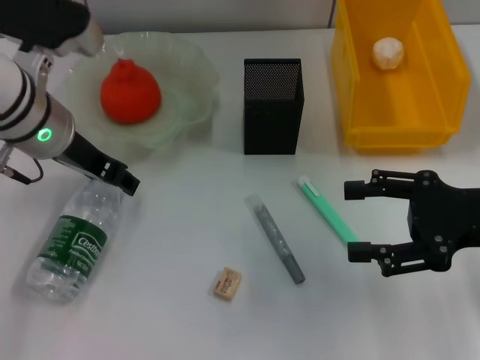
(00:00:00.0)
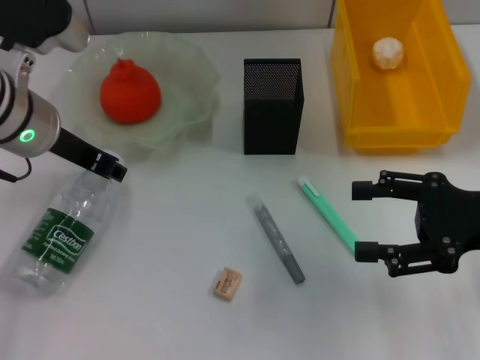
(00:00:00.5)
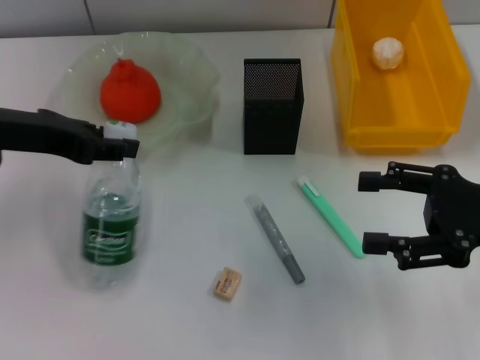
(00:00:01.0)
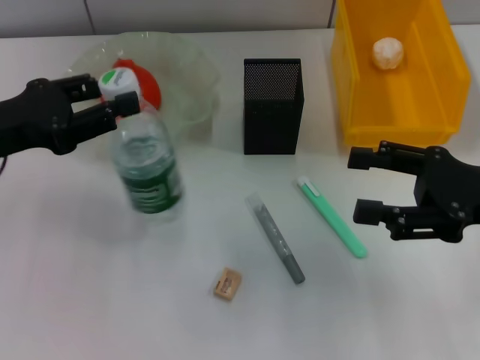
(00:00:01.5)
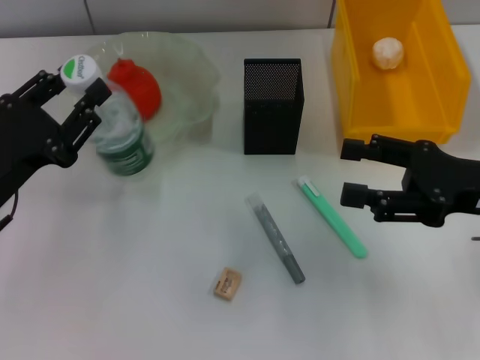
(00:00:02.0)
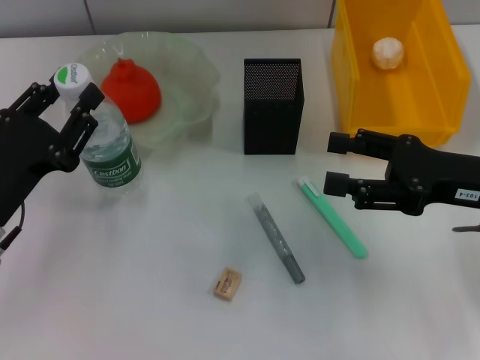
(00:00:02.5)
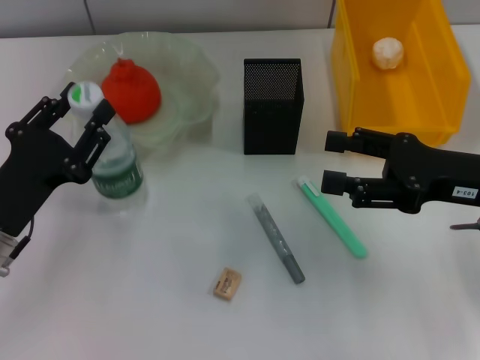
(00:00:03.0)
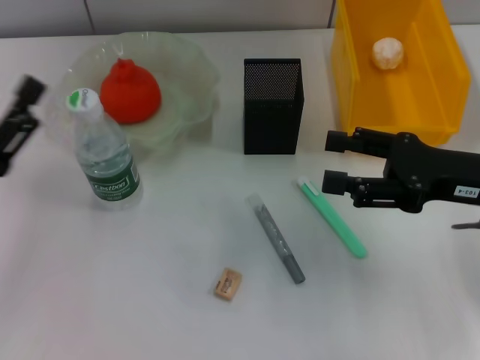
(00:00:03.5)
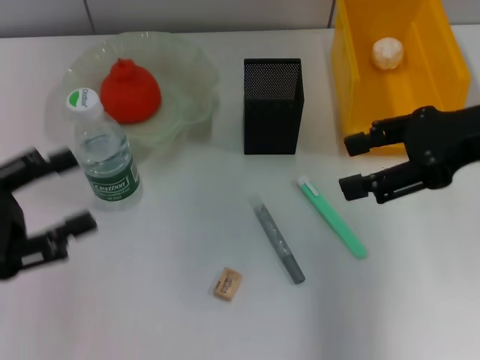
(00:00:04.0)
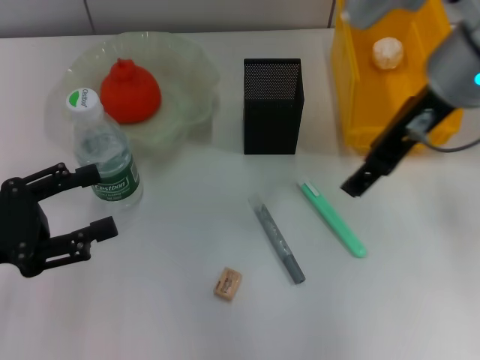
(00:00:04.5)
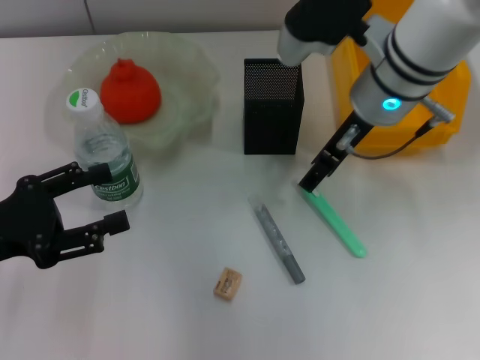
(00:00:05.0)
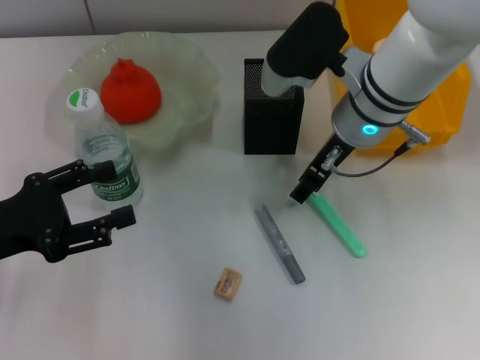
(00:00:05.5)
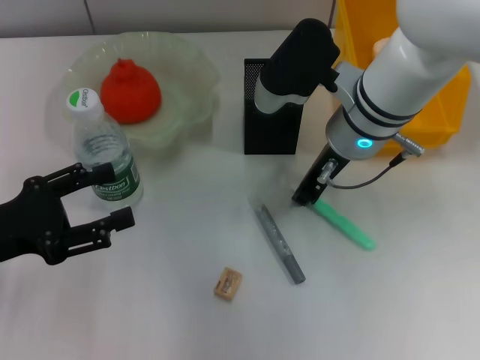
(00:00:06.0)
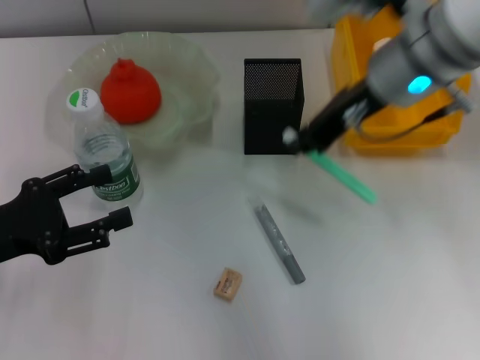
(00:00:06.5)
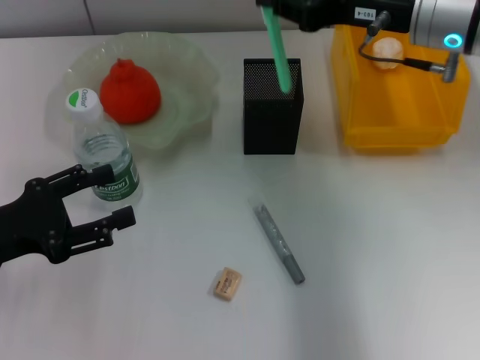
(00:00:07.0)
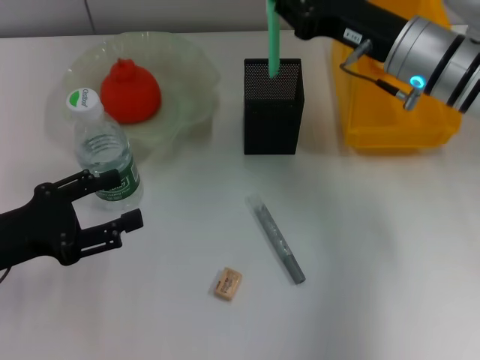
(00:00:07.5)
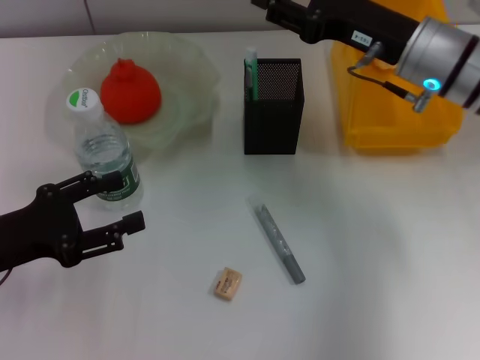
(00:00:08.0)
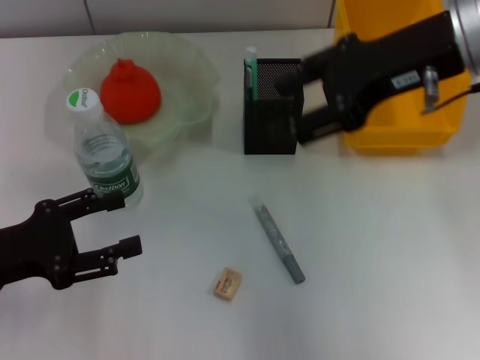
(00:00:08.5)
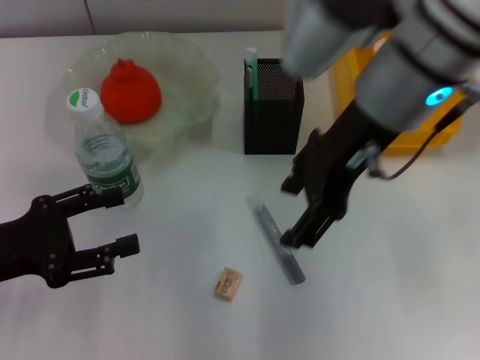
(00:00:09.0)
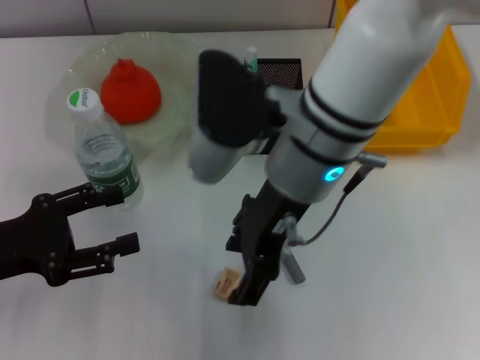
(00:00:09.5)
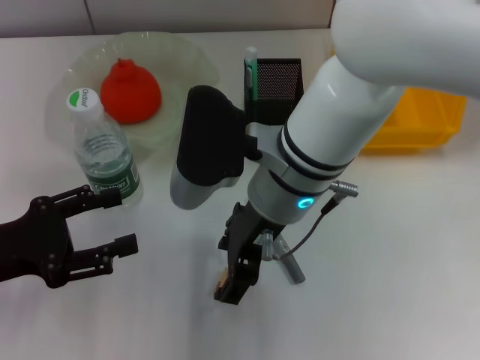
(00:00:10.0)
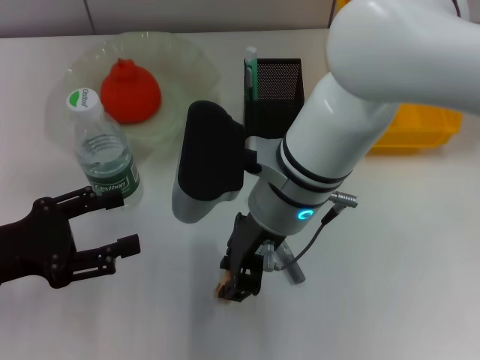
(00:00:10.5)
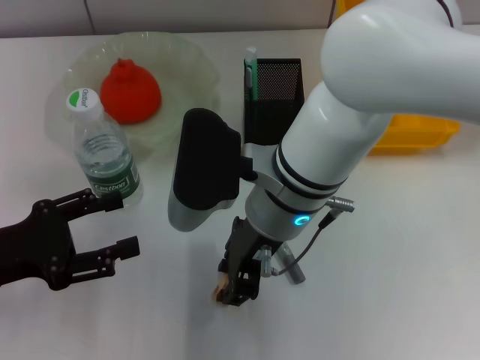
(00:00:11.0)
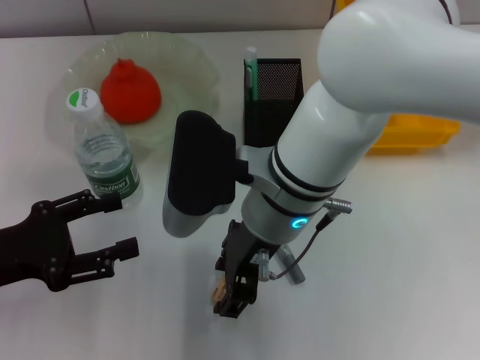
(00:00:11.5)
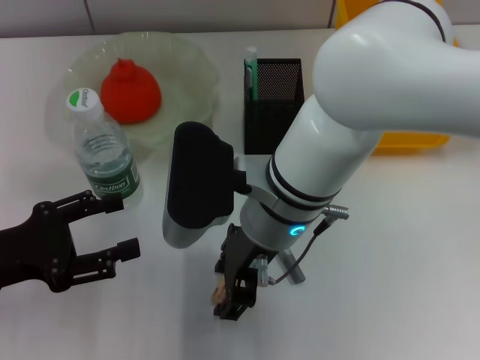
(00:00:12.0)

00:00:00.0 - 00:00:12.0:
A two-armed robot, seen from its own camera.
Step, 00:00:00.5 - 00:00:03.0: Place the water bottle on the table with the left hand.
Step, 00:00:03.5 - 00:00:06.0: Grab the blue utility knife with the right hand.
Step, 00:00:06.5 - 00:00:07.5: Place the blue utility knife into the pen holder with the right hand.
00:00:00.0 - 00:00:02.0: The left gripper is displaced backward, to the left and downward by roughly 15 cm, and closes its fingers.
00:00:02.0 - 00:00:04.0: The left gripper goes roughly 5 cm to the left, and opens up. The right gripper heads upward, covering roughly 10 cm.
00:00:04.0 - 00:00:06.0: The right gripper heads to the left, downward and forward, covering some 20 cm, and closes its fingers.
00:00:06.0 - 00:00:08.0: The right gripper is displaced to the right by some 10 cm, and closes and opens again.
00:00:08.0 - 00:00:10.0: The right gripper is displaced to the left and backward by some 20 cm.

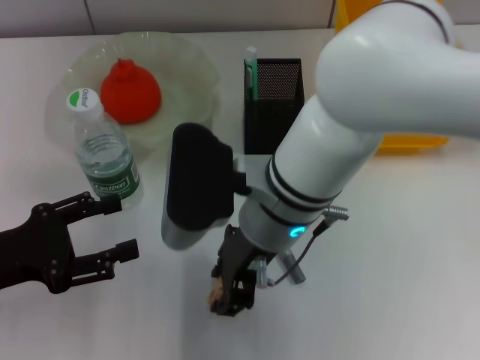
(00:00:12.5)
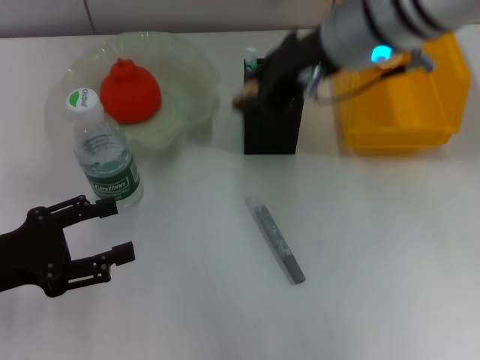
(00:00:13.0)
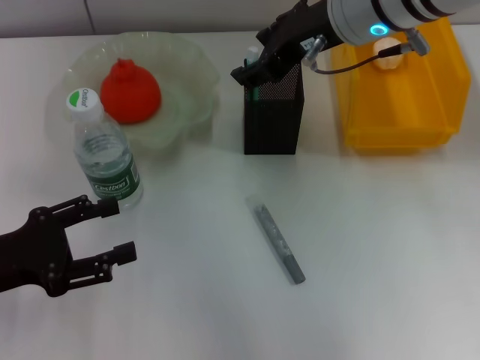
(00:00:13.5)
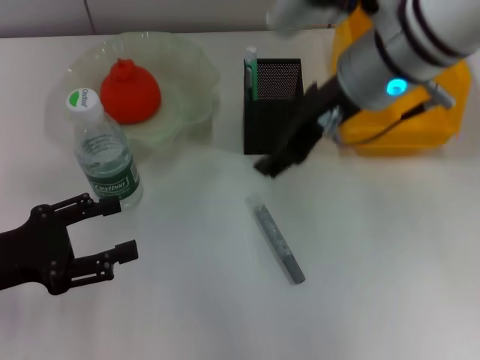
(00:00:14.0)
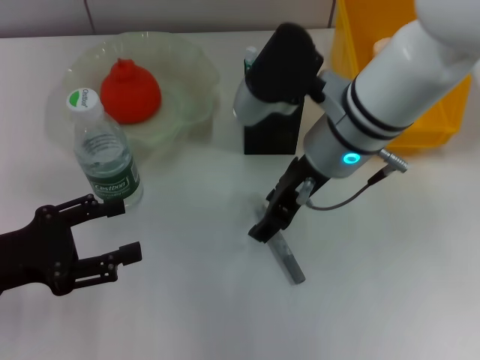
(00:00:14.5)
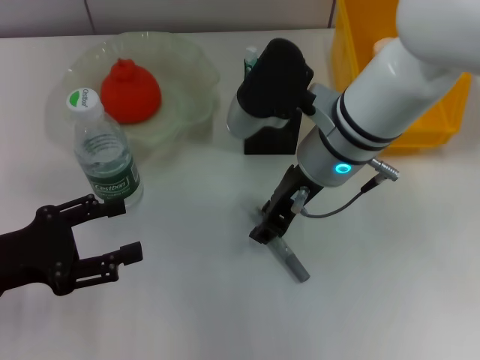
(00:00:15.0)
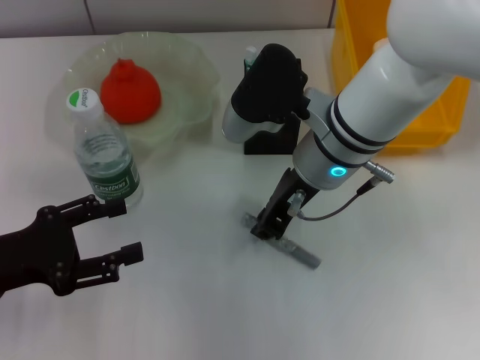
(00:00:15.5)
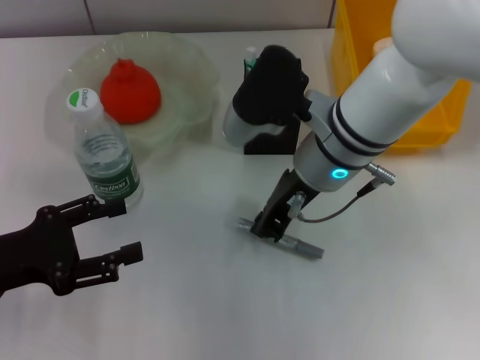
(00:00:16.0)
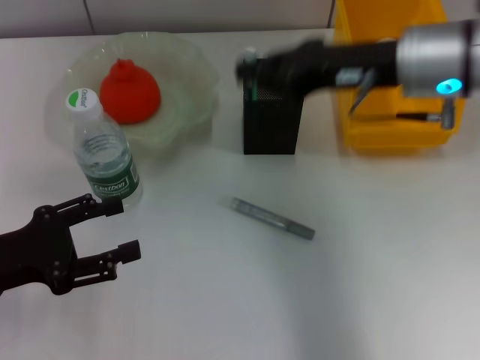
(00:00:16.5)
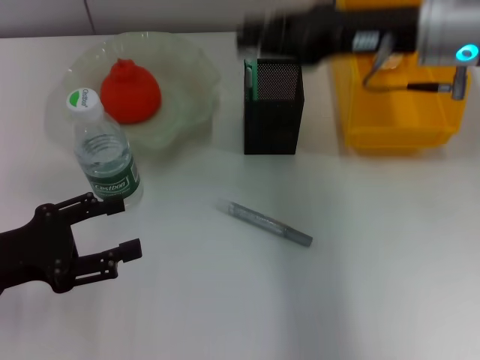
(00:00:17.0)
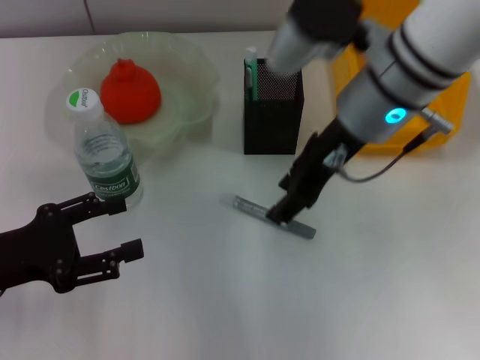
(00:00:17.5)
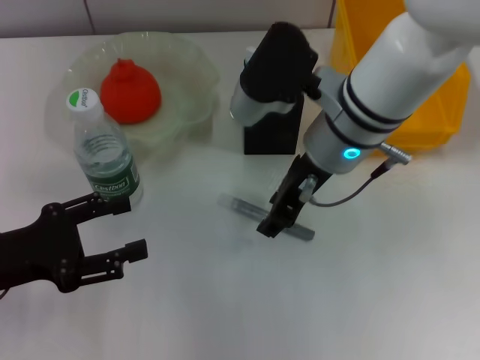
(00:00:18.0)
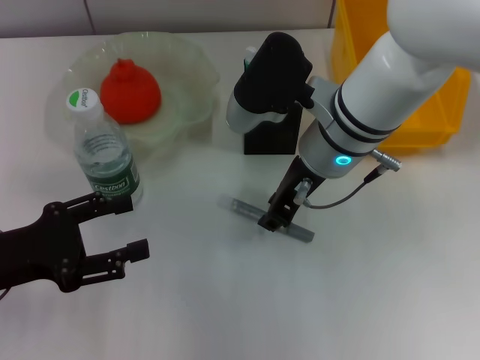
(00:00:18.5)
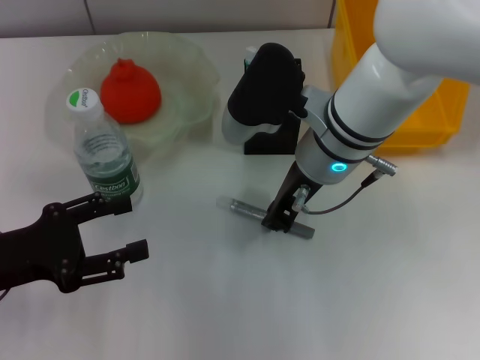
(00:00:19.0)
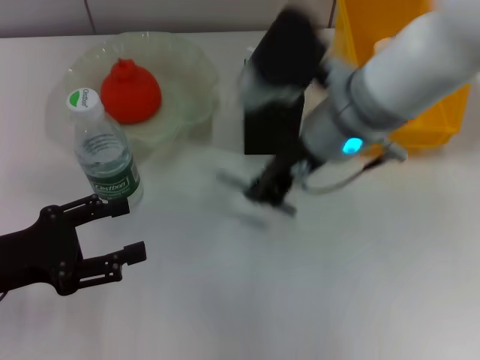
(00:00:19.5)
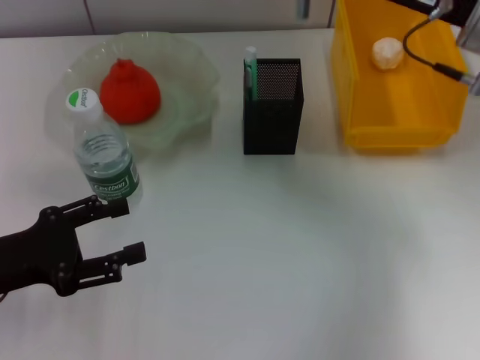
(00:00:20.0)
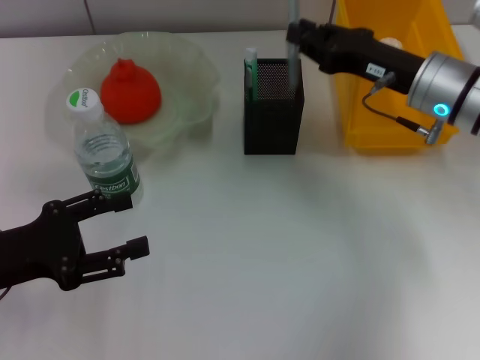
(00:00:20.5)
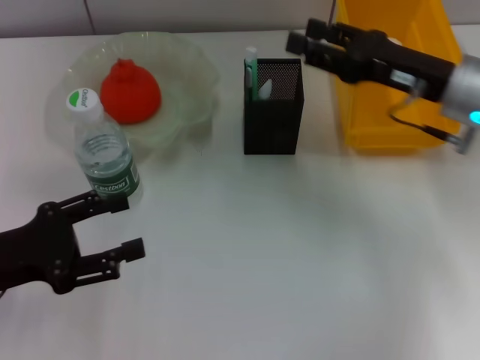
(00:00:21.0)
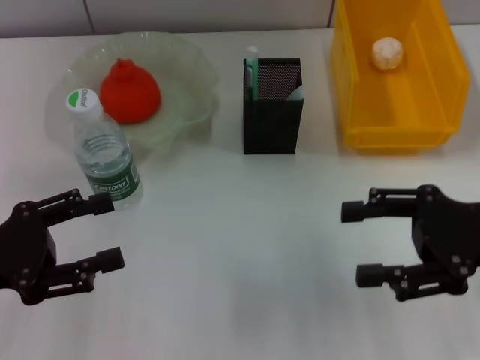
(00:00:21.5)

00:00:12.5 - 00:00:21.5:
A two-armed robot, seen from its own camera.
Step, 00:00:13.5 - 00:00:19.0: Grab the gray glue with the right hand.
Step, 00:00:19.5 - 00:00:20.5: Place the gray glue into the pen holder with the right hand.
00:00:12.5 - 00:00:14.5: The right gripper shifts some 10 cm to the right and forward, and moves roughly 10 cm upward and comes back.
00:00:14.5 - 00:00:17.0: The right gripper goes some 10 cm to the right and upward, and closes its fingers.
00:00:17.0 - 00:00:19.5: The right gripper shifts roughly 10 cm to the left, and opens, then closes again.
00:00:19.5 - 00:00:21.5: The right gripper is displaced to the right and backward by roughly 20 cm, and opens its fingers.

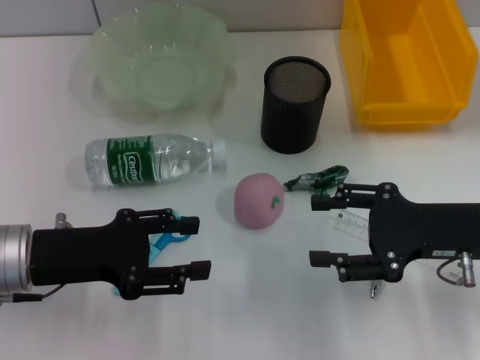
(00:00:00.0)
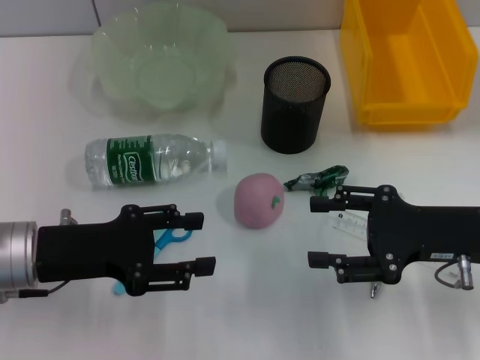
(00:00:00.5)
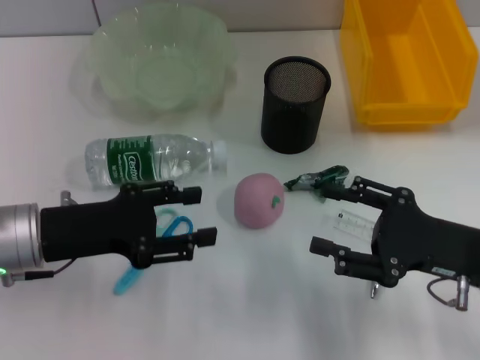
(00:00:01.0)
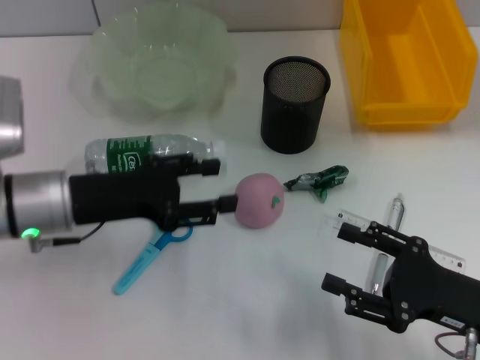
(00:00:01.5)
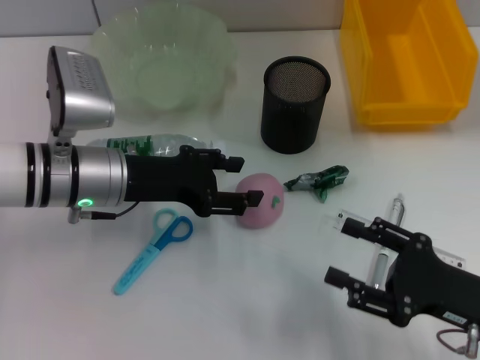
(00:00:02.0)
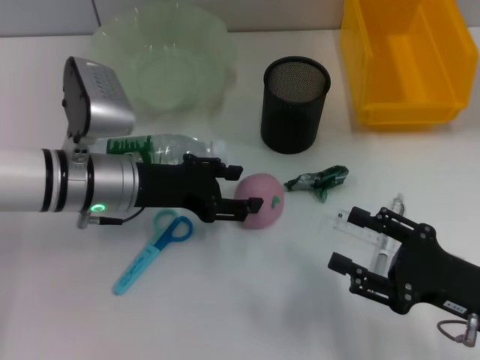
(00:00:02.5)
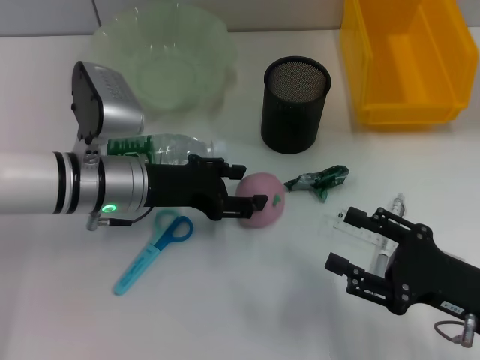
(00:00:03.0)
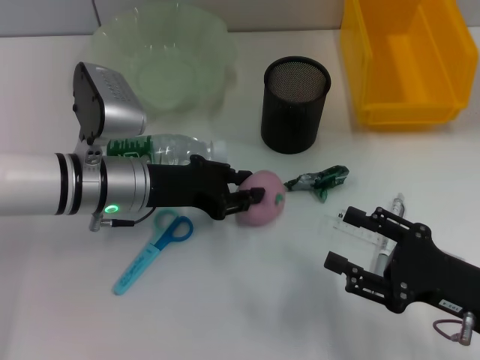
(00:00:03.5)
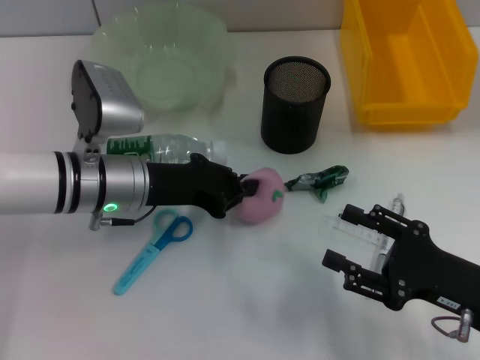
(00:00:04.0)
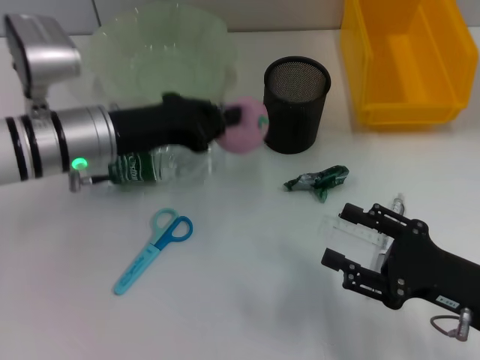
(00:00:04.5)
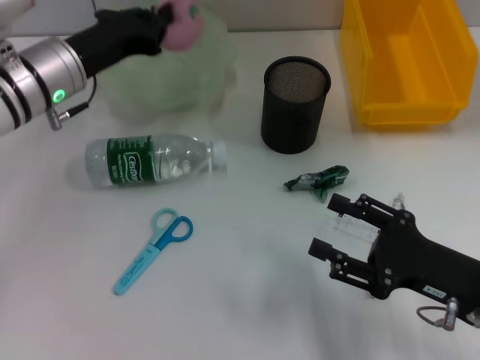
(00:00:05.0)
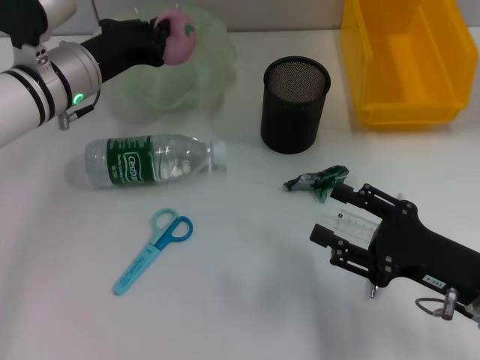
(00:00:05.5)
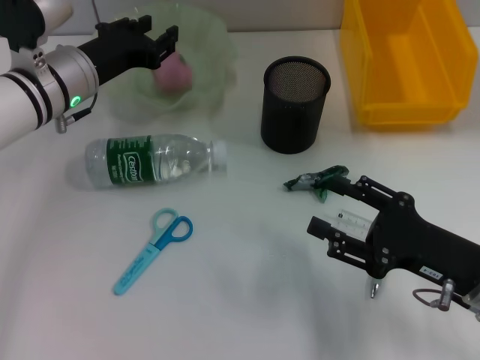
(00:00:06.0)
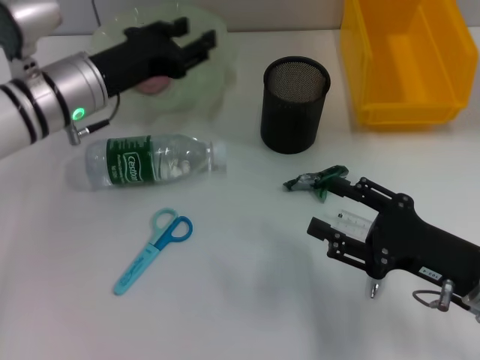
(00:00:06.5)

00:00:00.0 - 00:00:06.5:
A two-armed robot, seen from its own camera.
Step, 00:00:00.0 - 00:00:03.5: Grab the peach with the left hand.
Step, 00:00:04.5 - 00:00:06.0: Place the peach into the fruit bowl with the left hand.
00:00:00.0 - 00:00:02.0: The left gripper travels forward and to the right by about 10 cm, while the right gripper is displaced backward and downward by about 10 cm.
00:00:02.0 - 00:00:04.5: The left gripper closes.
00:00:04.5 - 00:00:06.5: The left gripper opens its fingers.
